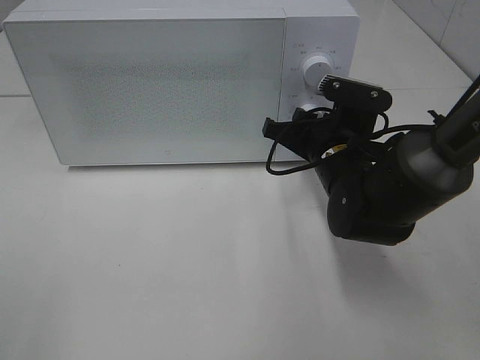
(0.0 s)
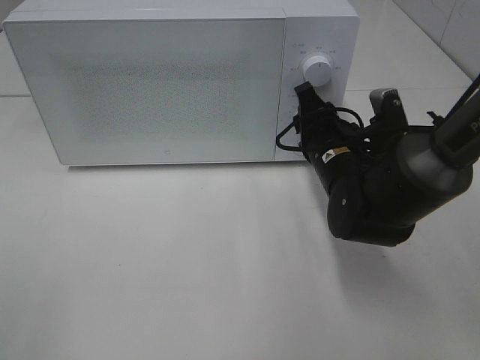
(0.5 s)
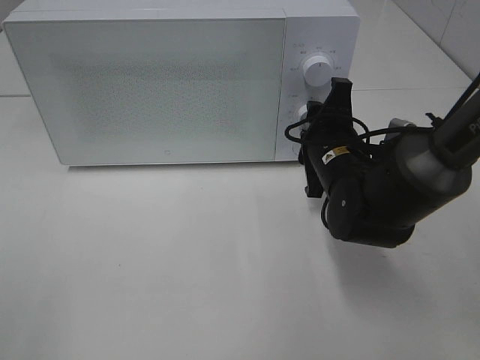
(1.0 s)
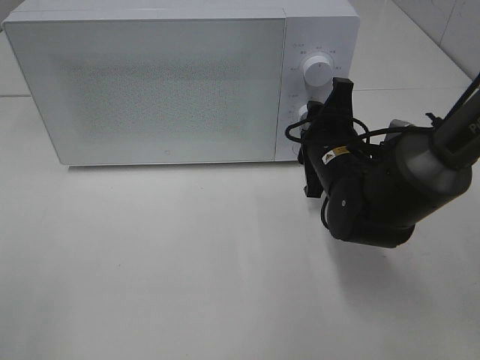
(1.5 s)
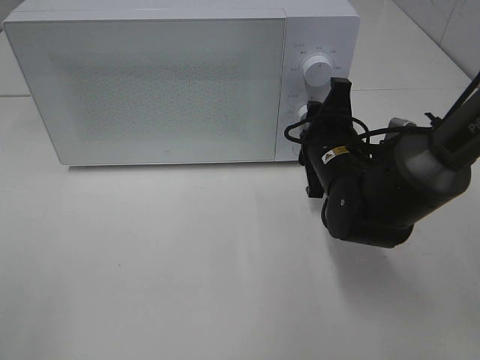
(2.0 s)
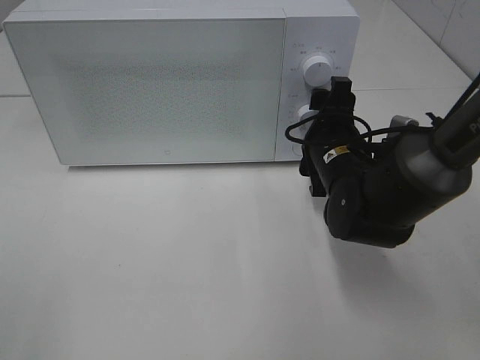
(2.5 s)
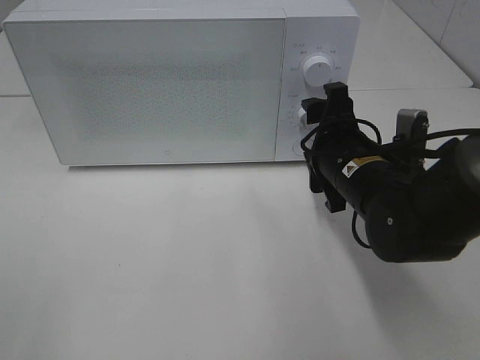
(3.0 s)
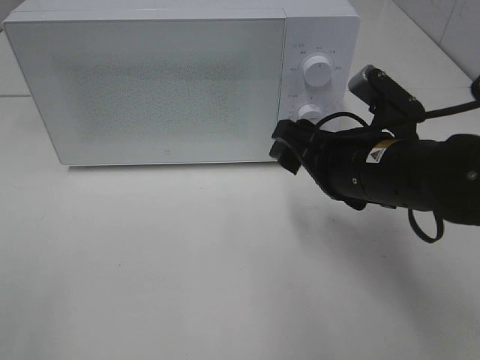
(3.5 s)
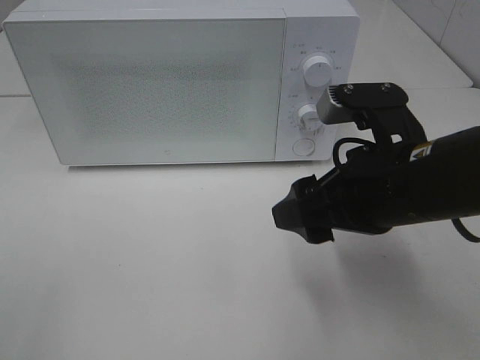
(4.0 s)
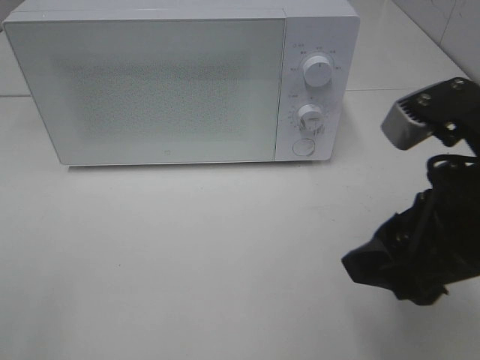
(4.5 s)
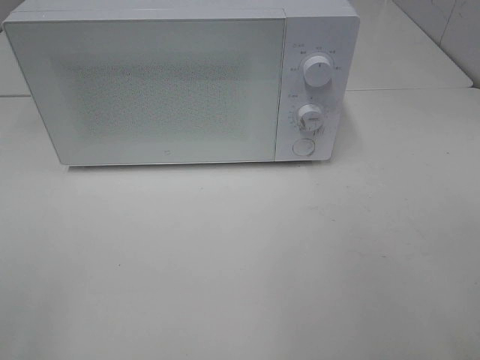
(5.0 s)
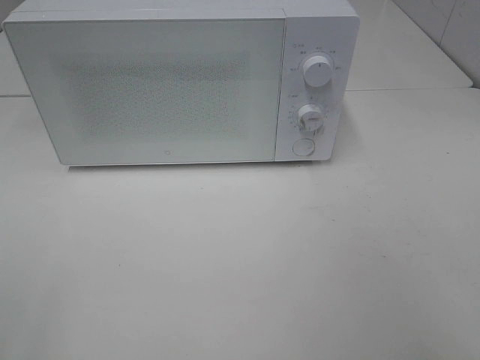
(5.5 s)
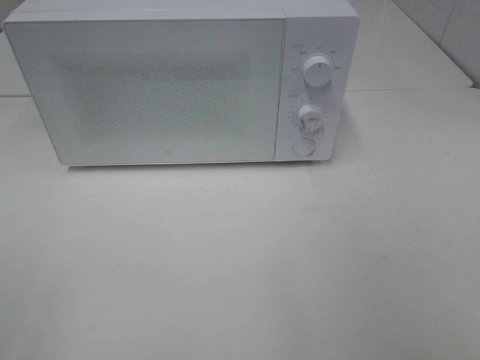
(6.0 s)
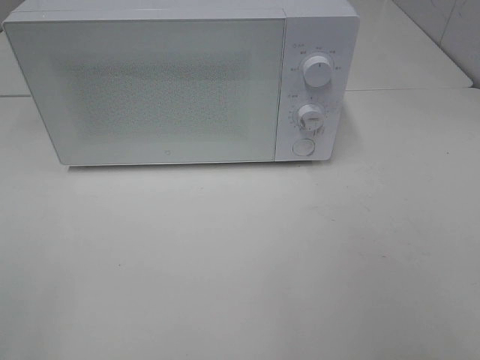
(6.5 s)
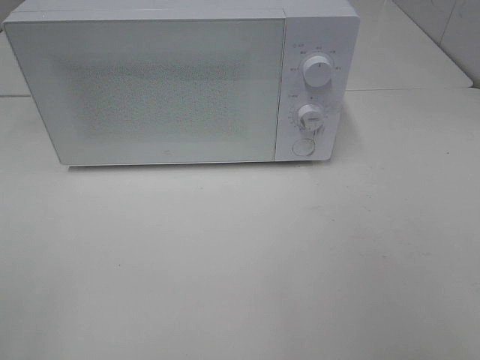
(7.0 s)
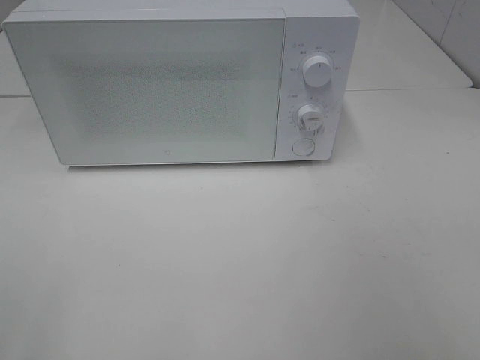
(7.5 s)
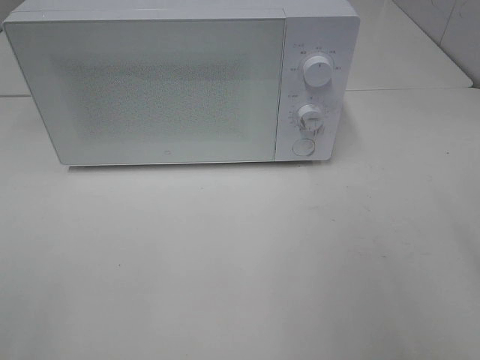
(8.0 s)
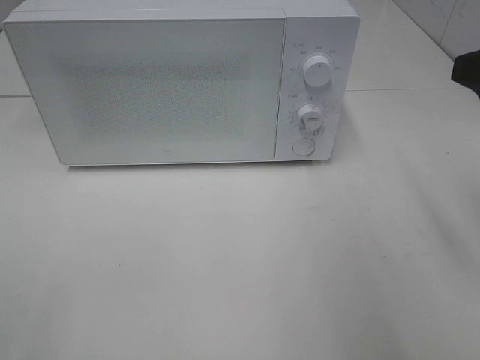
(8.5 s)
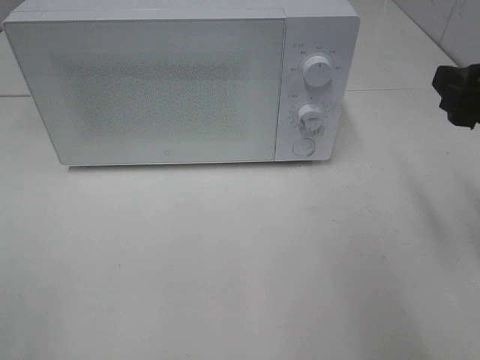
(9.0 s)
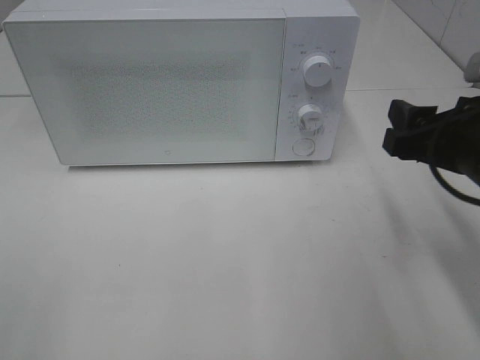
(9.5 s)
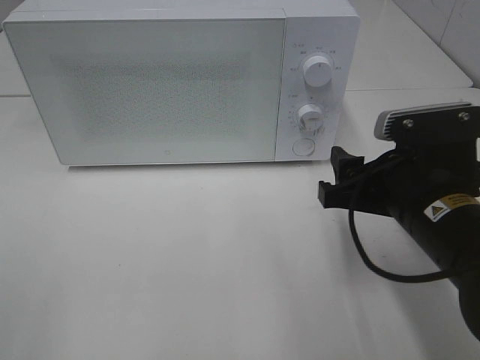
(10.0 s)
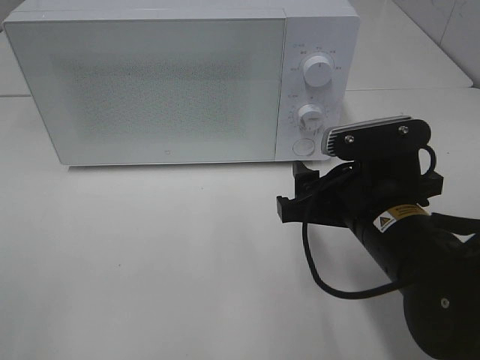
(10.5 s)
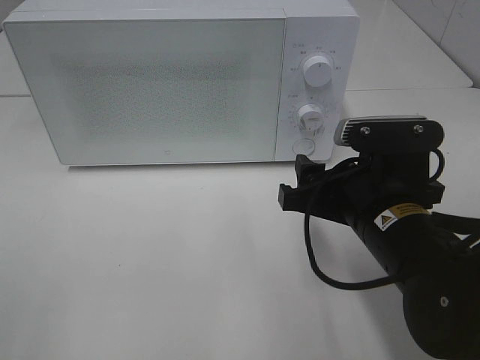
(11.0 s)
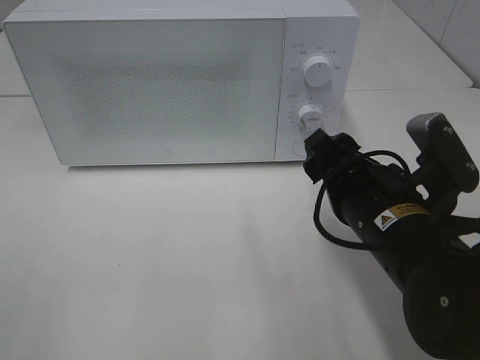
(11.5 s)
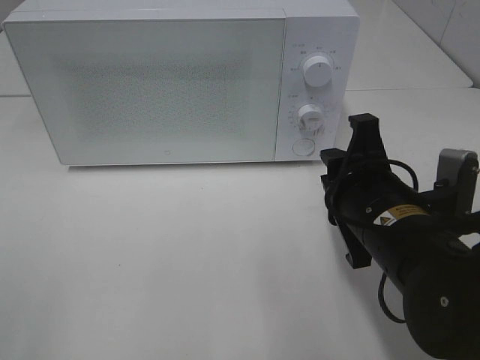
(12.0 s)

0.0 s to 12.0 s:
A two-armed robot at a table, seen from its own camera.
Task of the whole recording: Heat Sandwich.
Step, 0.0 to 2.0 s: Right hand: twist timer button.
2.0 to 4.0 s: The right gripper moves backward and upward, some 15 cm.
4.0 to 6.0 s: The right gripper travels backward, to the right and upward by about 25 cm.
8.0 to 10.0 s: The right gripper is displaced downward, to the left and forward by roughly 20 cm.
10.0 to 12.0 s: The right gripper closes.

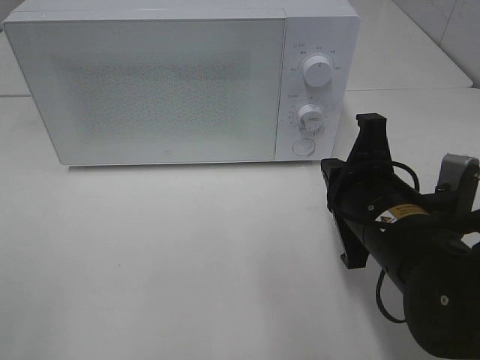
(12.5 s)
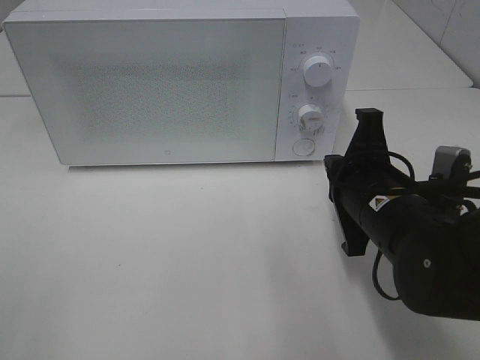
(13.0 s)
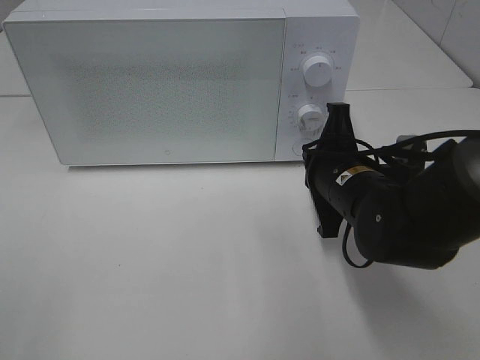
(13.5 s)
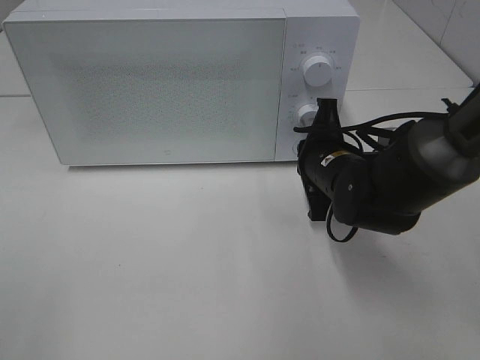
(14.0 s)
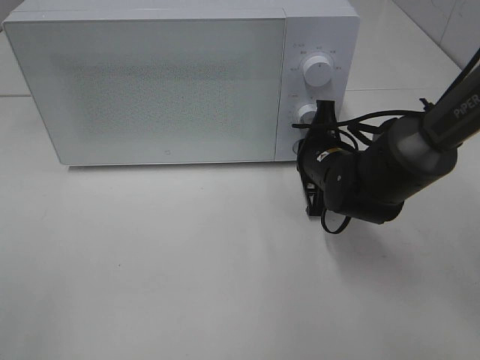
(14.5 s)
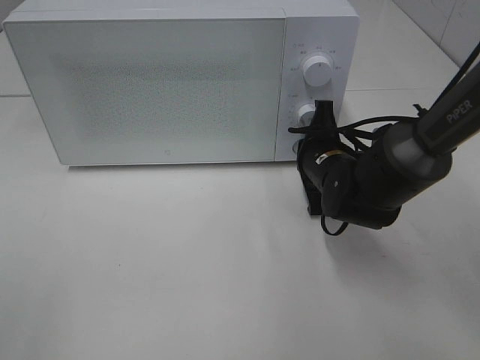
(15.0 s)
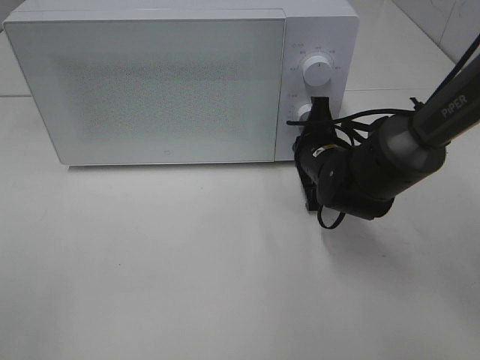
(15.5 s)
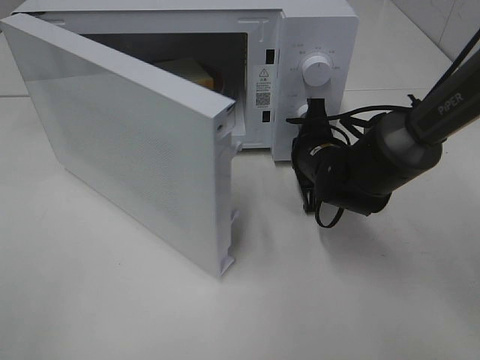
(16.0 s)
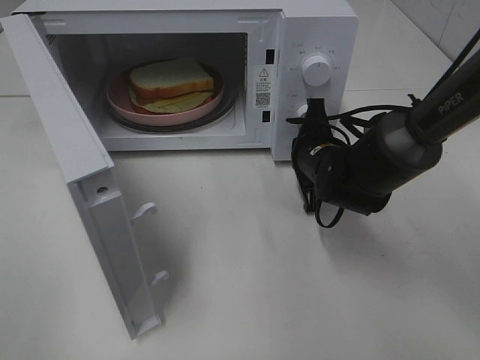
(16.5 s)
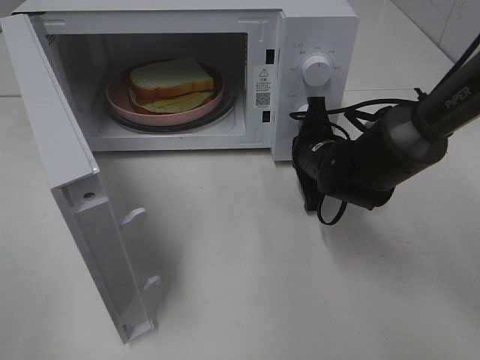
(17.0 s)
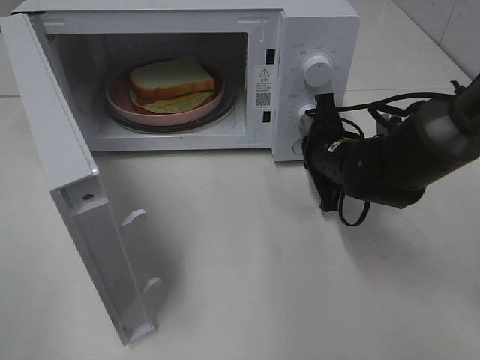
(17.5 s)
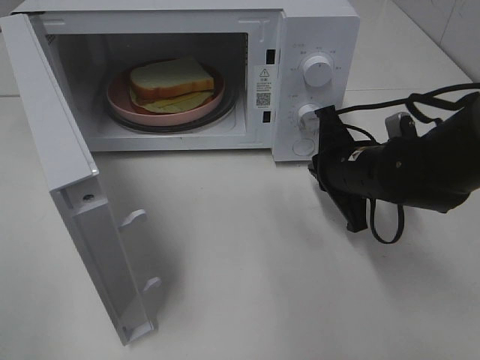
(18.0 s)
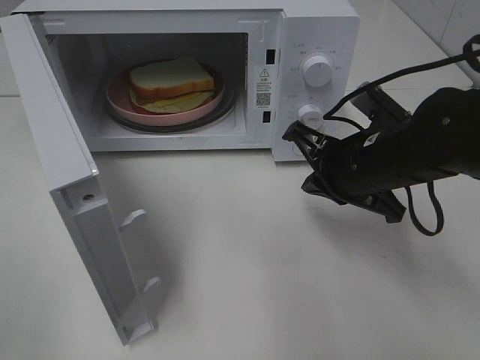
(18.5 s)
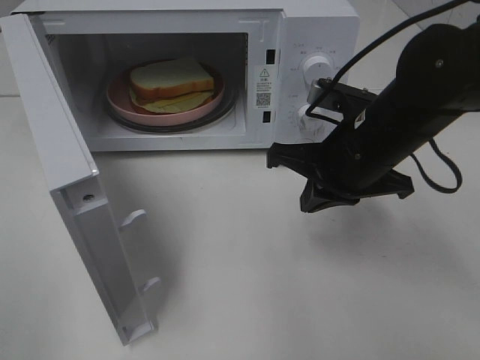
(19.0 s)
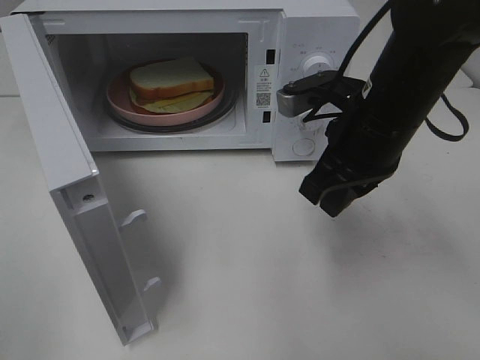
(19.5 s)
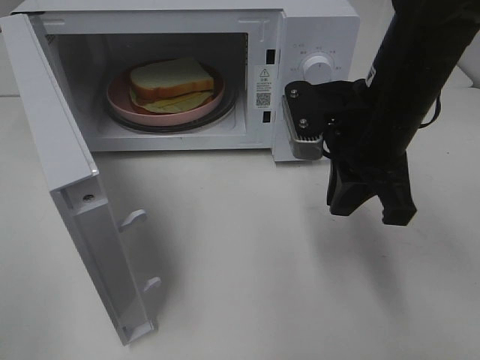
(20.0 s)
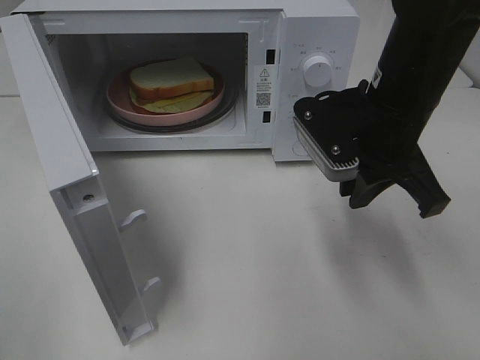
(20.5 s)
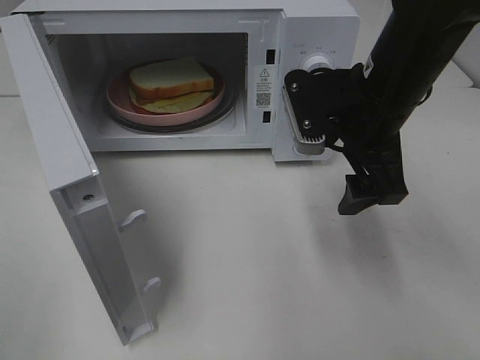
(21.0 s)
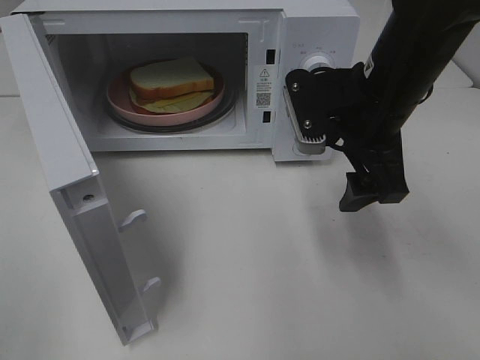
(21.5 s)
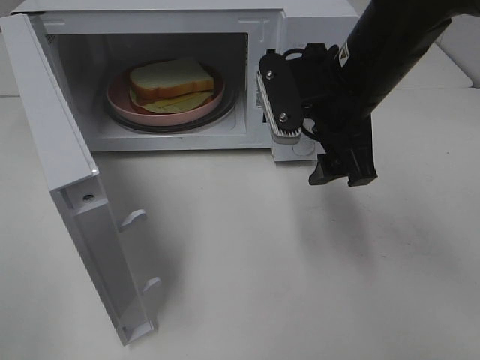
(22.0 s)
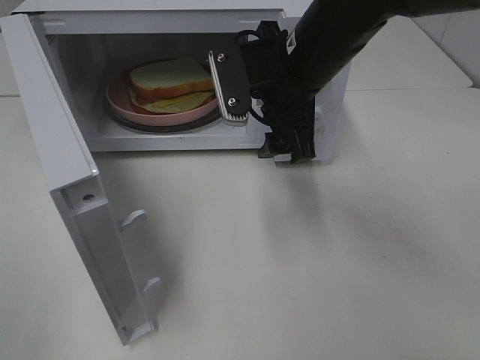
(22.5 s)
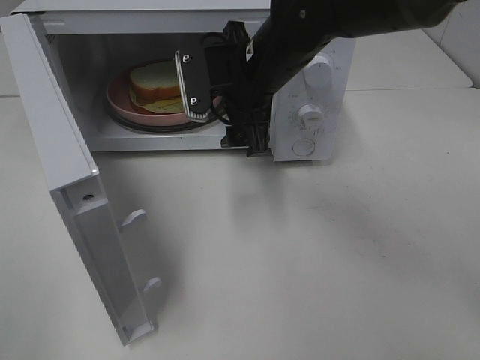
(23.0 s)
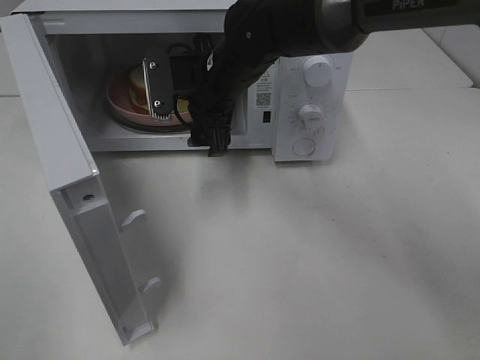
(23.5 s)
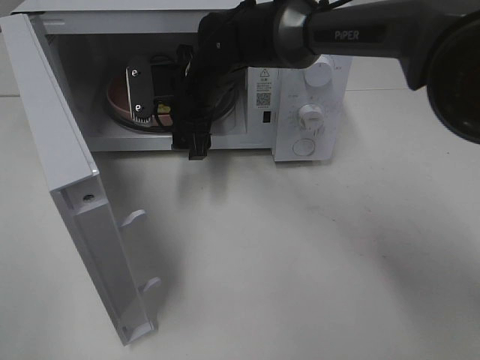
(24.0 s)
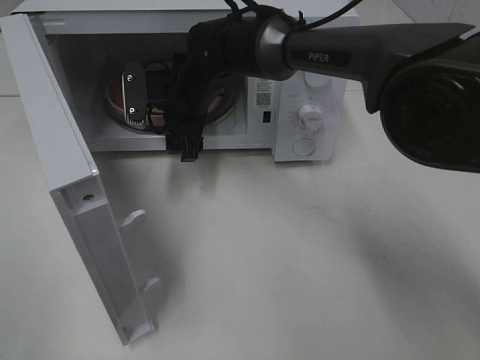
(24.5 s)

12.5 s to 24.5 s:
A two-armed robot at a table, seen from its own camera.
Task of the whole recording: Heat Sandwich.
Step, 12.5 to 17.5 s: Right hand: press the switch.
12.5 to 14.5 s: The right gripper travels forward and downward by some 15 cm.
16.5 to 18.5 s: The right gripper travels backward and upward by roughly 10 cm.
18.5 to 20.5 s: The right gripper moves upward, about 5 cm.
20.5 to 22.5 s: The right gripper moves to the left, about 5 cm, and opens.
22.5 to 24.5 s: The right gripper moves to the left, forward and downward, some 20 cm.

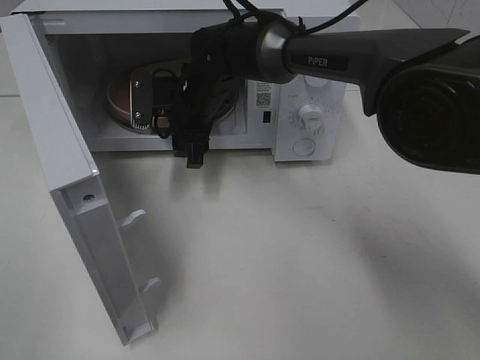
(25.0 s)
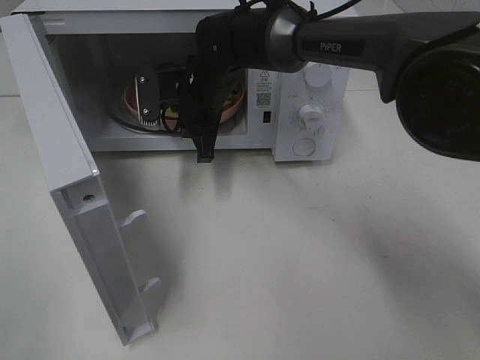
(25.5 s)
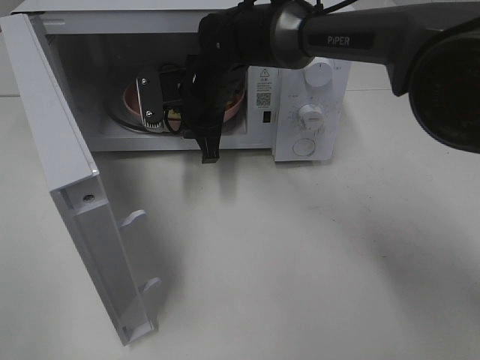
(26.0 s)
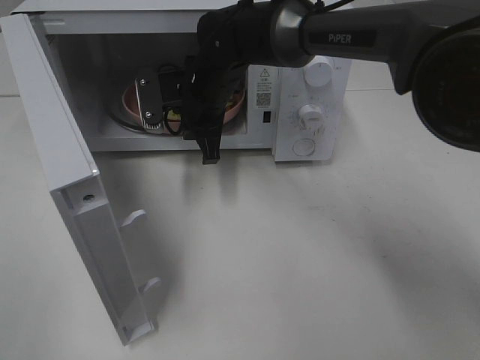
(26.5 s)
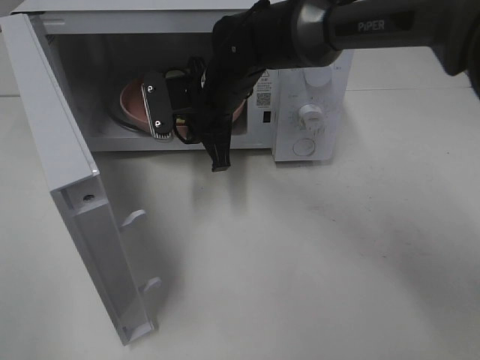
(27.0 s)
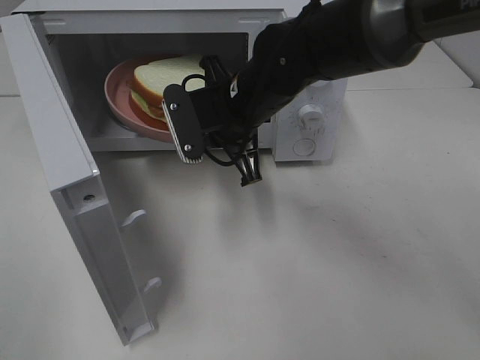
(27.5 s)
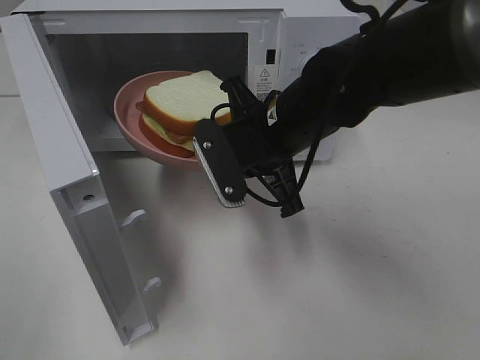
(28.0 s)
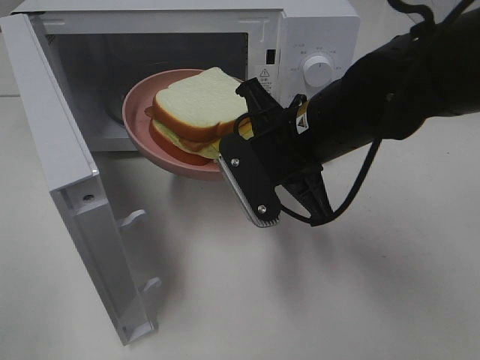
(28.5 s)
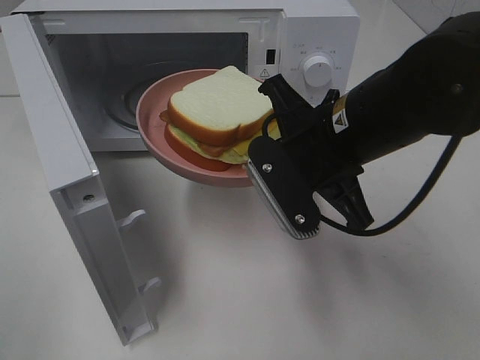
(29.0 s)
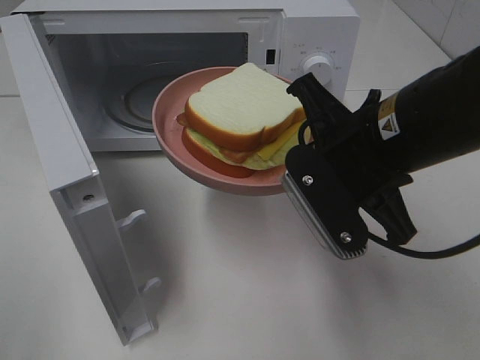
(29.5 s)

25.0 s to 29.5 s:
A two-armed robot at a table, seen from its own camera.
Task of the whole recording: Heat Sandwich.
25.0 to 27.0 s: The right gripper shifts by about 5 cm, and closes its fingers.
27.0 to 29.5 s: The right gripper is displaced backward and to the right by about 25 cm.
